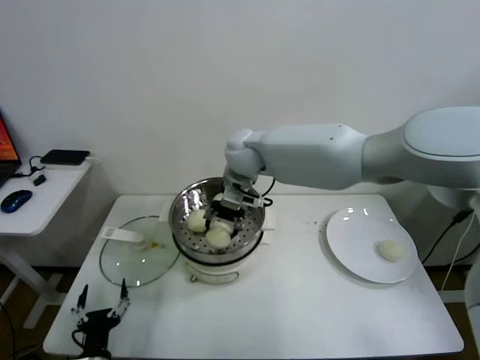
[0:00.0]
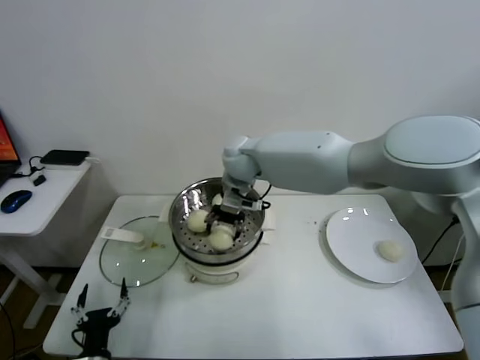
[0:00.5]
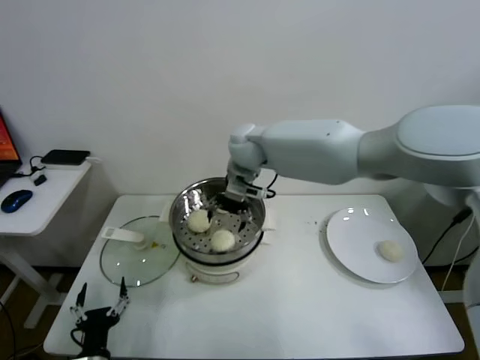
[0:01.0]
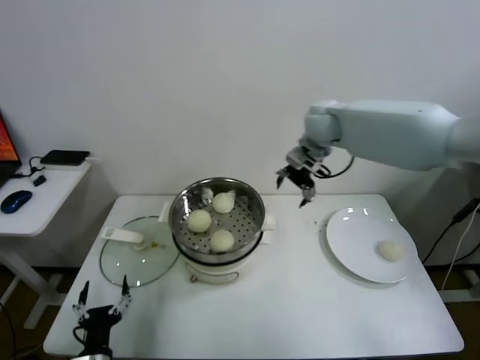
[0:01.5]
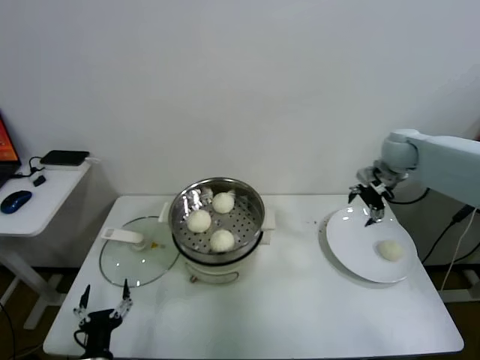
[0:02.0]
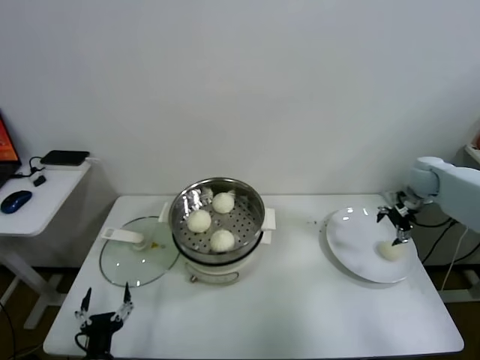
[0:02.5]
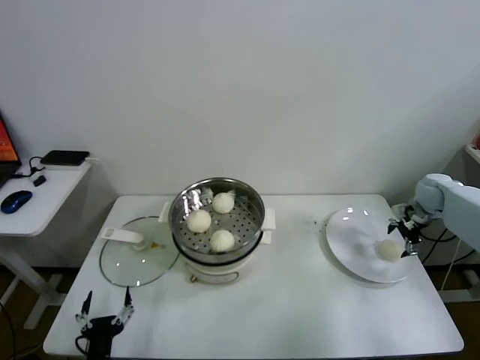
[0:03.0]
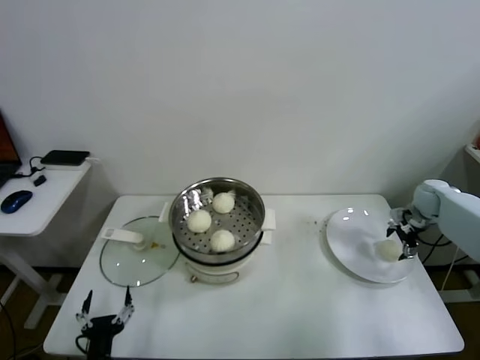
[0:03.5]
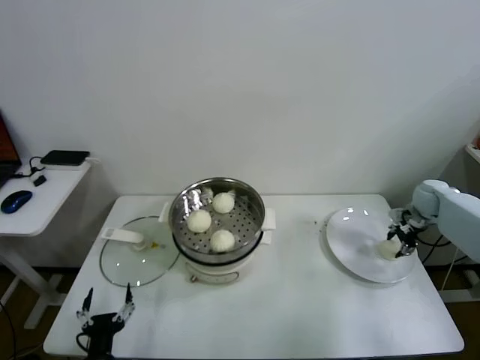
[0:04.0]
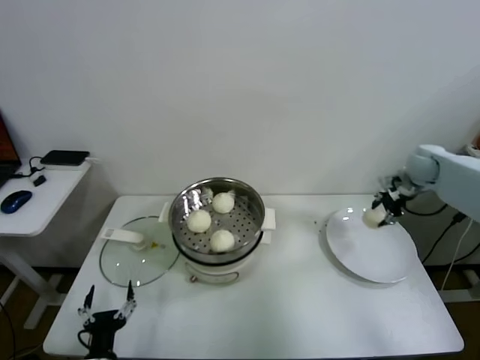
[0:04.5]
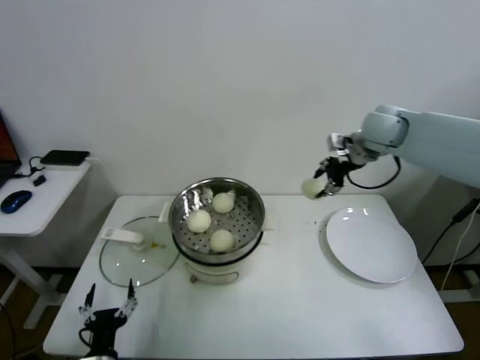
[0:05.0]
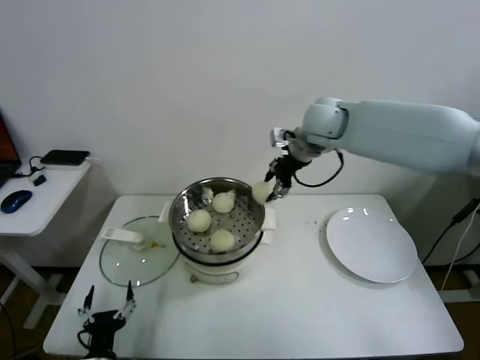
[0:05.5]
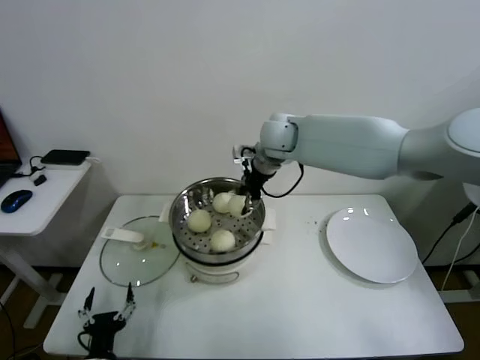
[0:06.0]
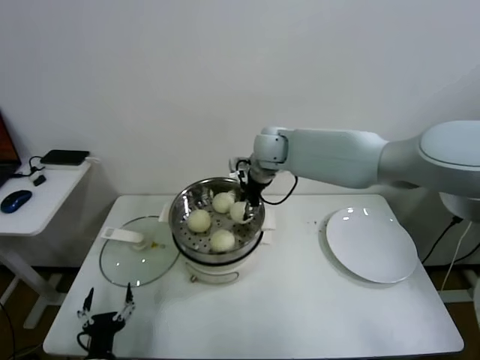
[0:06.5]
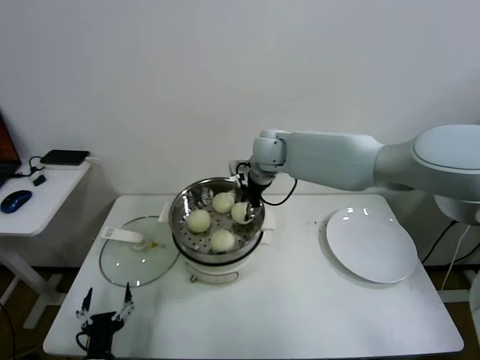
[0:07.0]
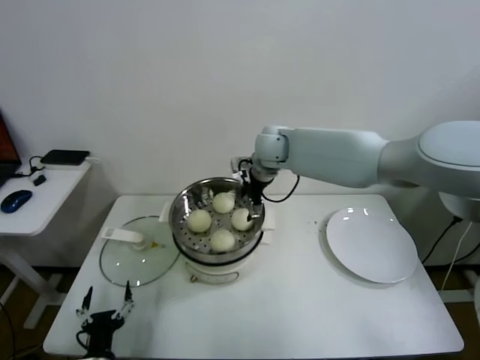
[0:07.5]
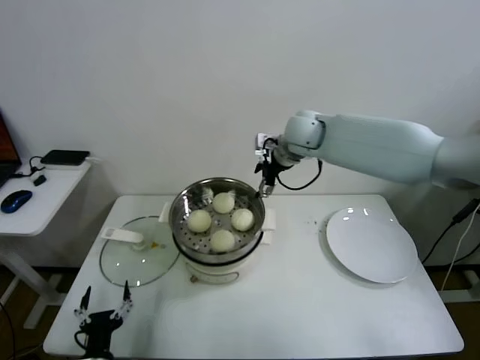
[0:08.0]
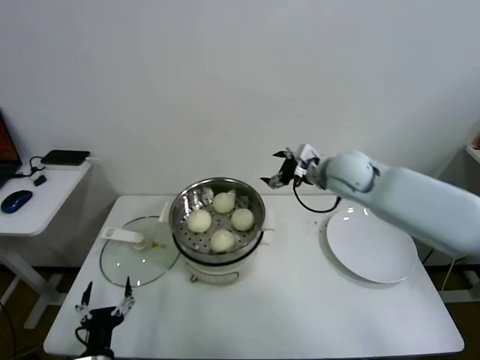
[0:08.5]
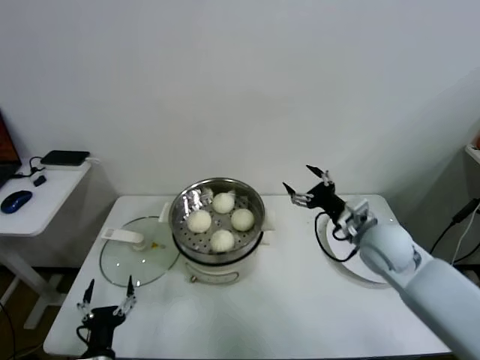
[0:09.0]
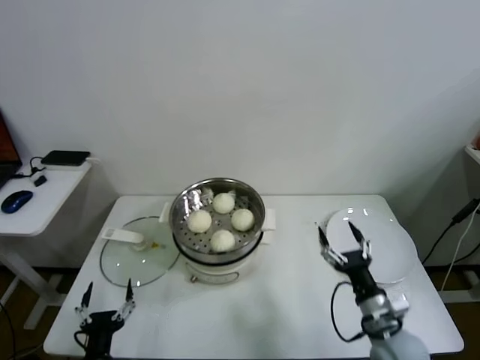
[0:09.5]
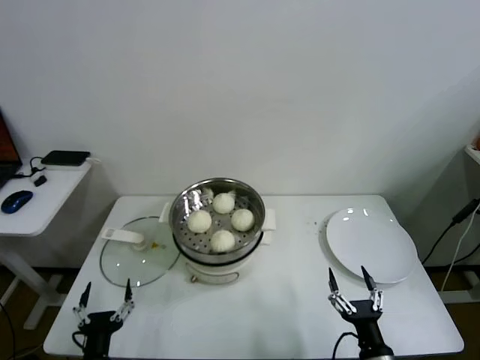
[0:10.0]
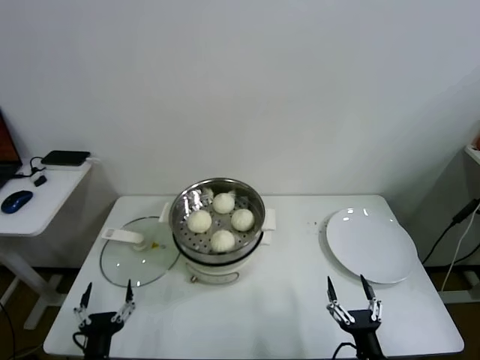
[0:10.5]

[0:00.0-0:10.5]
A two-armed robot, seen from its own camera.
Task of the whole recording: take steamed baozi put them in steamer.
Step, 0:01.0 to 0:03.5: Grasp the baozi in the plate with right gripper.
Step, 0:04.0 to 0:07.0: Place the baozi on the steamer with right gripper.
0:00.0 to 0:02.0: The right gripper shifts about 35 cm to the right, and opens up.
0:02.0 to 0:04.0: The right gripper travels downward and to the right by roughly 20 cm, and closes up.
0:04.0 to 0:06.5: The right gripper goes roughly 40 cm to the left.
0:06.5 to 0:08.5: The right gripper shifts about 15 cm to the right and backward, and opens its fingers.
0:08.5 to 0:10.5: The right gripper is displaced backward and downward by some 50 cm.

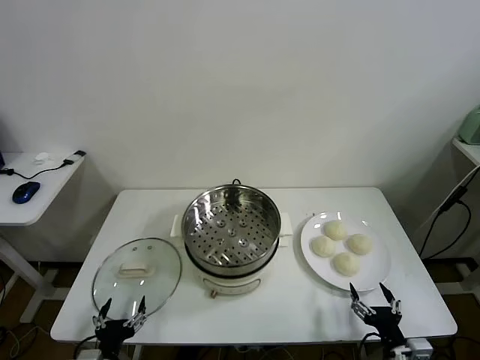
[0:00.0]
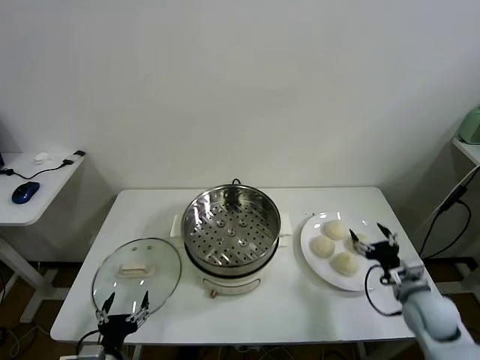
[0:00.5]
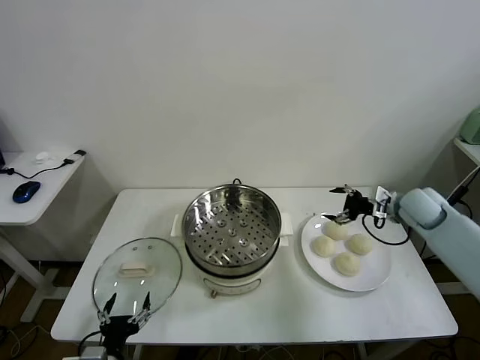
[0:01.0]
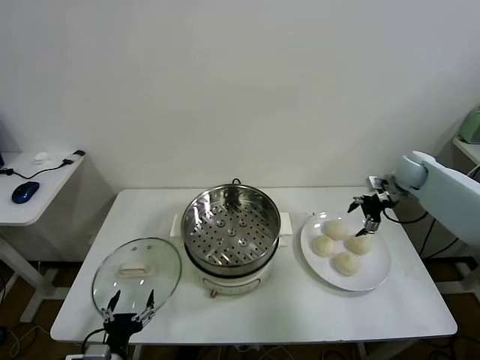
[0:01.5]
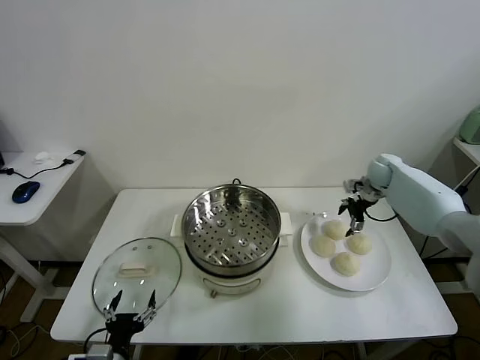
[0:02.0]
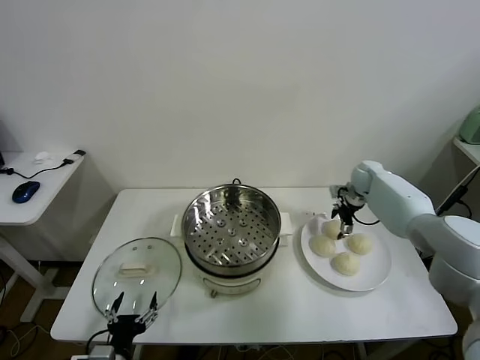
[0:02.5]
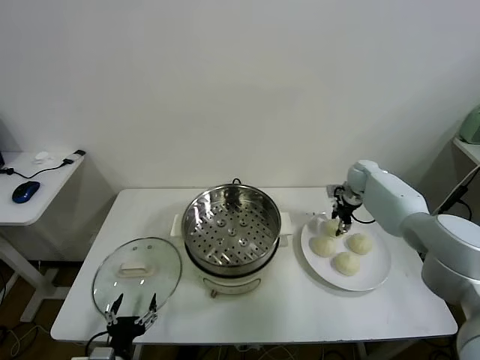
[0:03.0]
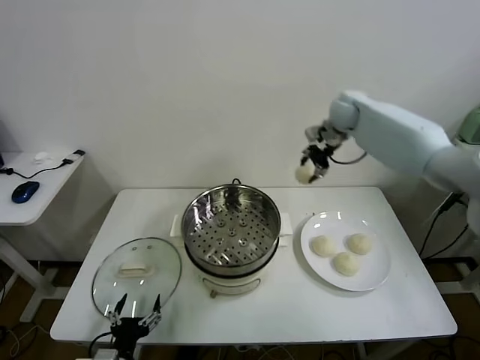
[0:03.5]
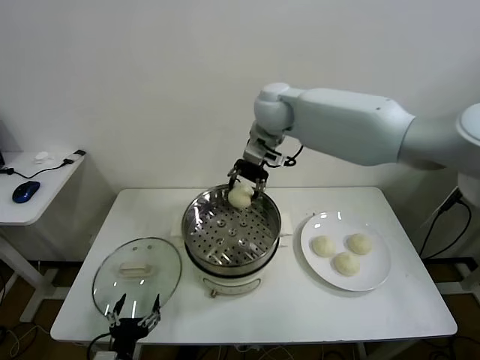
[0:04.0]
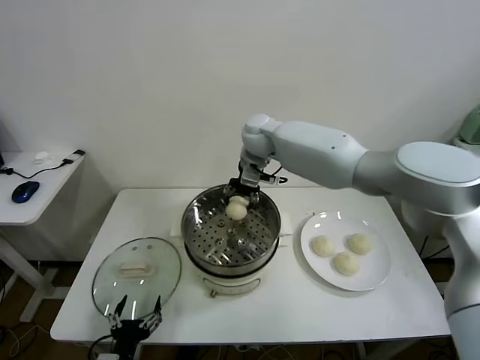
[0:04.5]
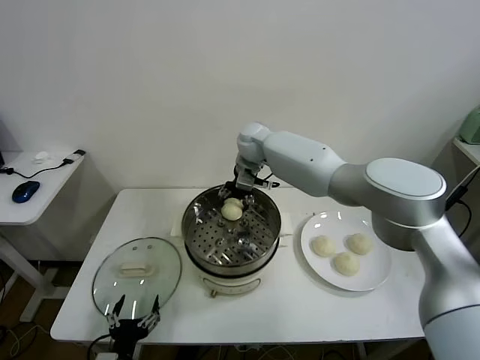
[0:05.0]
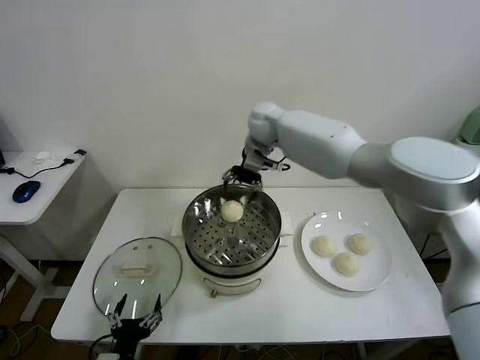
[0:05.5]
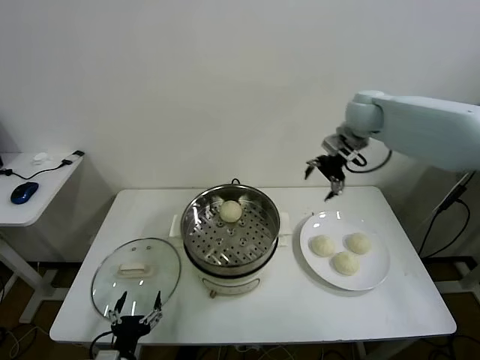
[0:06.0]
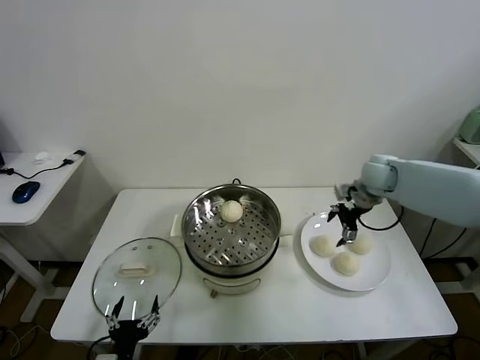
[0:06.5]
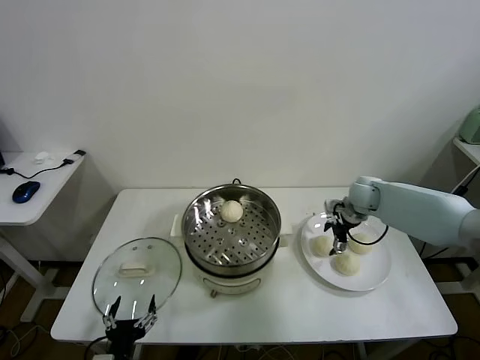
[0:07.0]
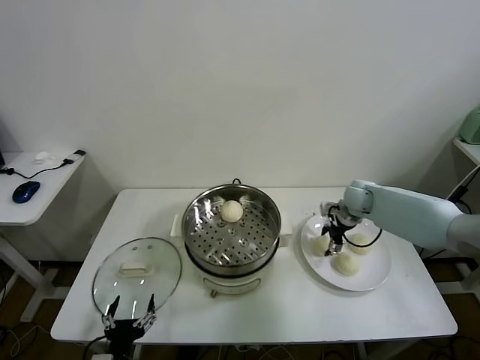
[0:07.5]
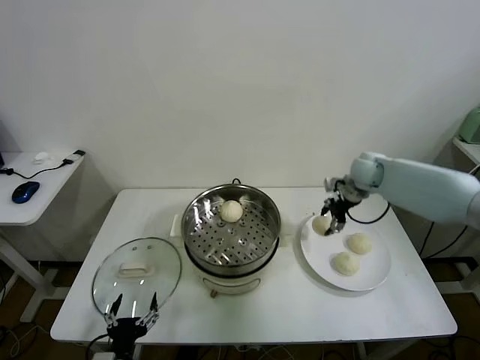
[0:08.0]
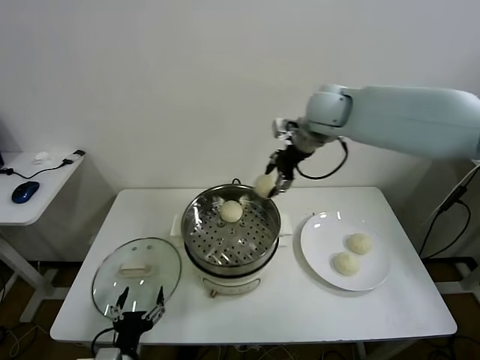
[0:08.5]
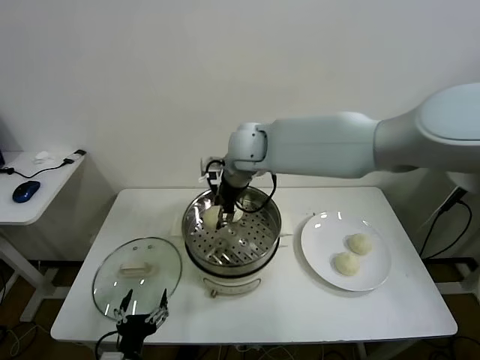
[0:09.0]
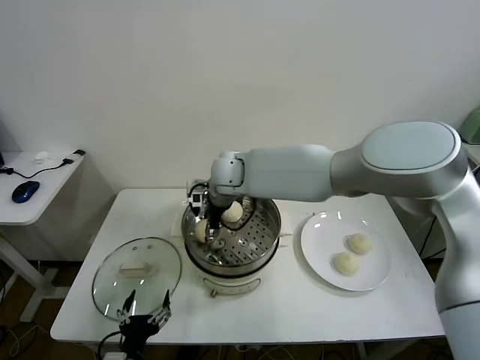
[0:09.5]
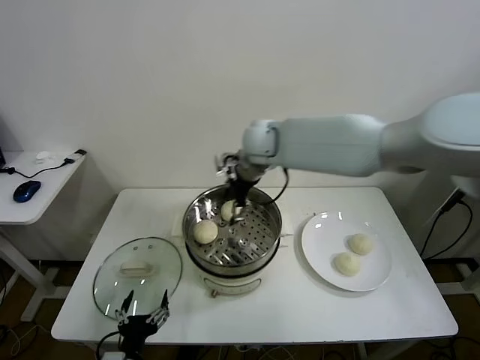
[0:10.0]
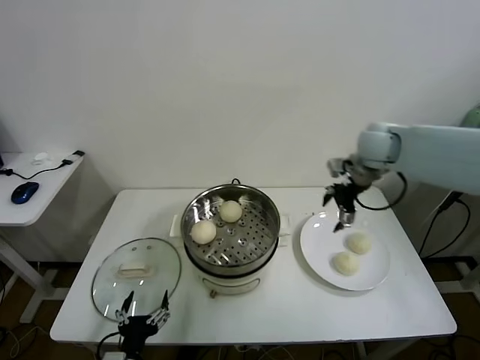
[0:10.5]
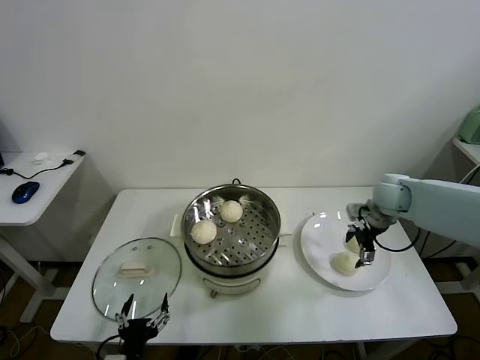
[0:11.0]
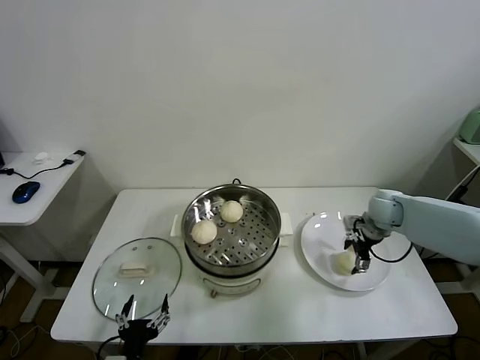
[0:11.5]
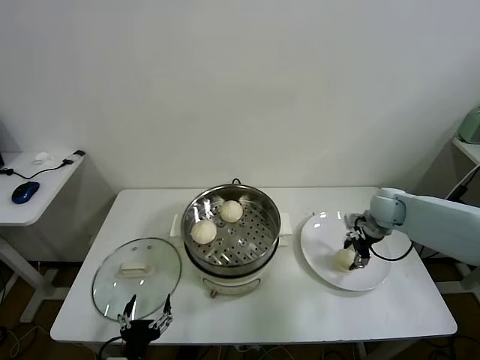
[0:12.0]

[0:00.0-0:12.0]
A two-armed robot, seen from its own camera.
Task of the whole recording: take steamed baozi put them in steamer.
Step, 0:00.0 to 0:02.5: Grasp the baozi in the plate with right gripper.
Step, 0:03.0 to 0:05.0: Place the baozi on the steamer with right gripper.
Step, 0:05.5 to 0:07.5: Grasp the baozi in the plate with right gripper.
Step, 0:08.0 to 0:09.5: Place the baozi on the steamer with right gripper.
Step, 0:10.0 to 0:11.5: Grasp the baozi in the plate with right gripper.
0:02.0 to 0:04.0: The right gripper shifts roughly 40 cm to the left and upward, and closes.
0:04.0 to 0:06.0: The right gripper shifts roughly 25 cm to the right, and opens up.
0:06.0 to 0:08.0: The right gripper is displaced downward by about 10 cm, and closes its fingers.
0:08.0 to 0:10.0: The right gripper heads to the left and upward, covering about 25 cm, and opens.
0:10.0 to 0:12.0: The right gripper shifts roughly 35 cm to the right and downward, and closes its fingers.

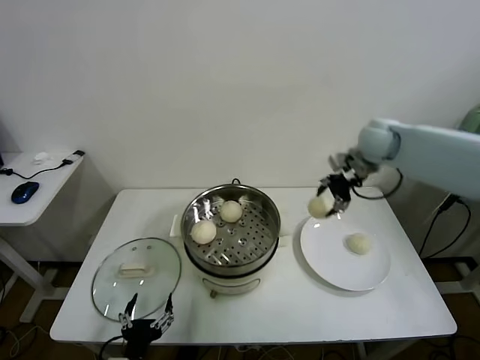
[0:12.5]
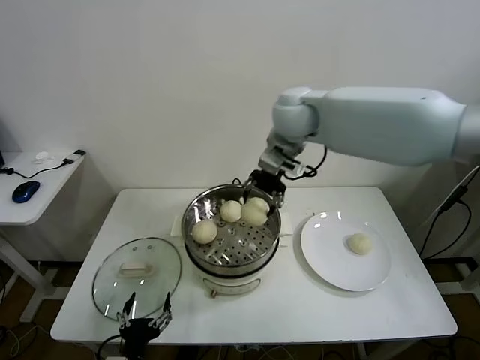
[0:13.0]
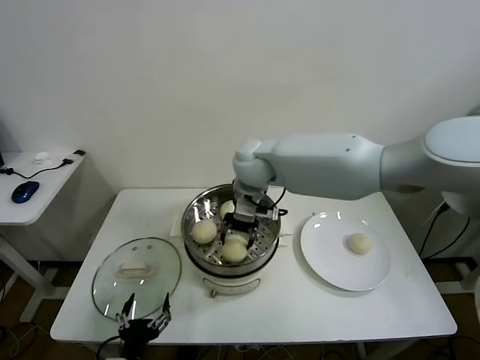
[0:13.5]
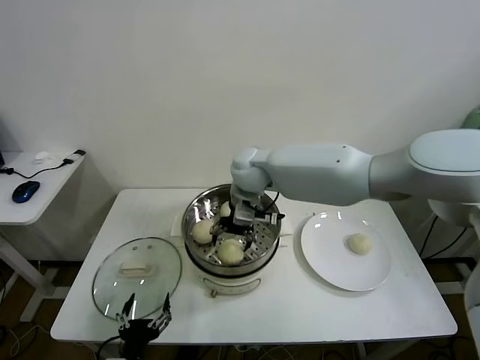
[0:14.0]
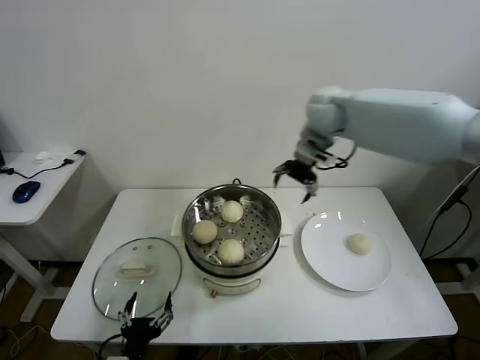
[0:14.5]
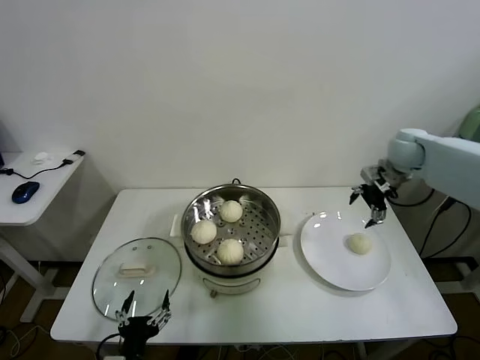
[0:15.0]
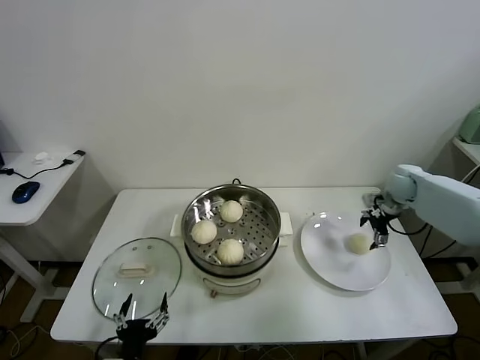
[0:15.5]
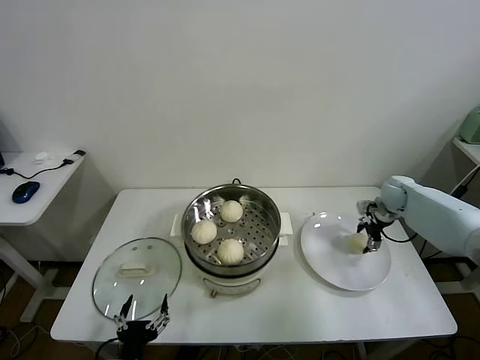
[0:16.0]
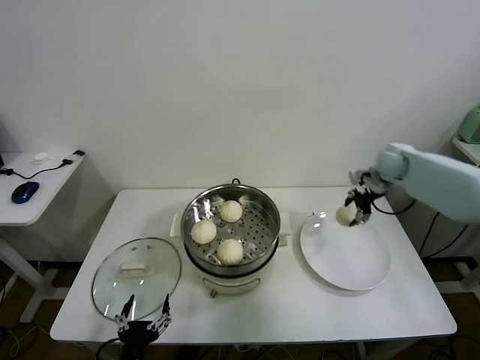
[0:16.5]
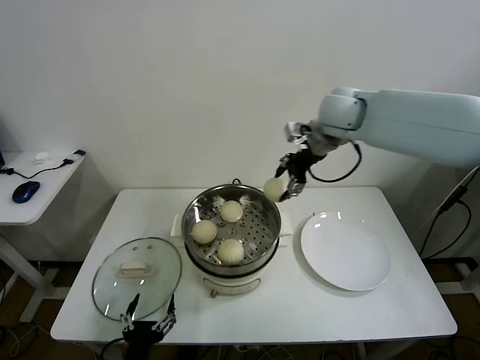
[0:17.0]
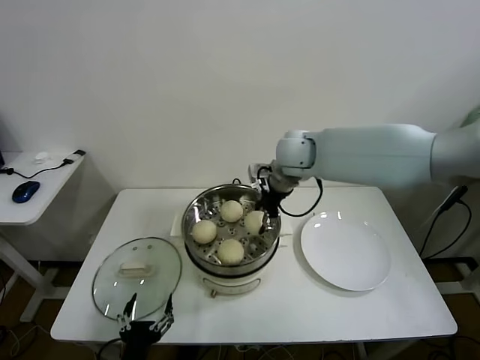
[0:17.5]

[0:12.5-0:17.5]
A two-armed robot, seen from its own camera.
Task of the whole recording: take steamed baozi put them in steamer.
Step, 0:12.5 to 0:13.5: Place the baozi on the steamer with right gripper.
Step, 0:14.5 to 0:16.0: Grasp the baozi in the plate with right gripper.
0:12.5 to 0:15.0: The right gripper travels downward by approximately 5 cm, travels to the left and back again, some 25 cm each way, and opens its fingers.
0:15.0 to 0:17.5: The right gripper is displaced to the left by about 30 cm, and closes up.
